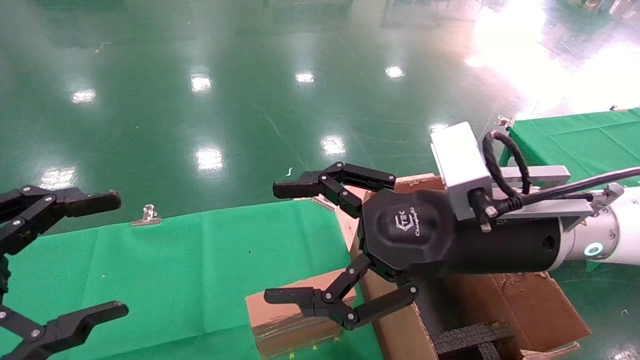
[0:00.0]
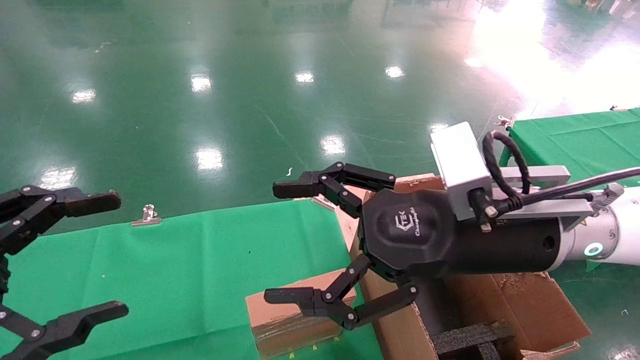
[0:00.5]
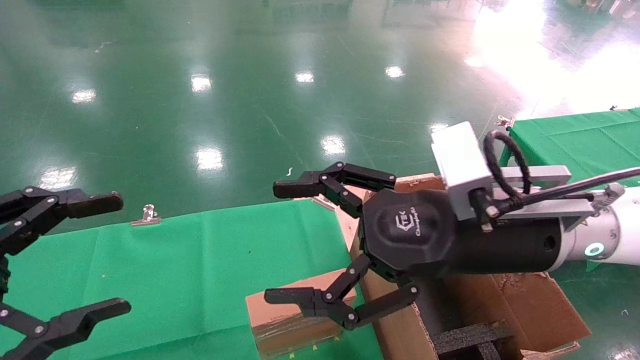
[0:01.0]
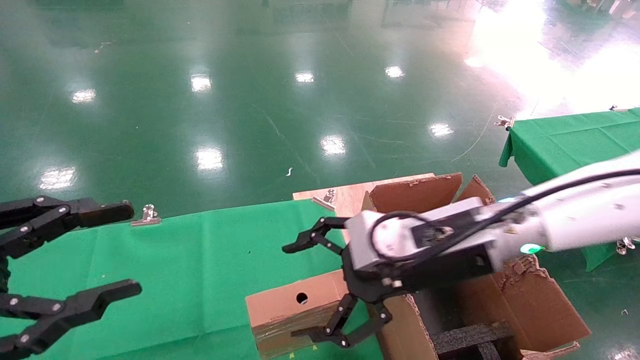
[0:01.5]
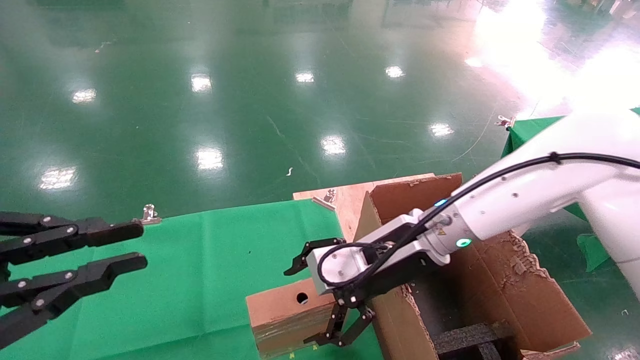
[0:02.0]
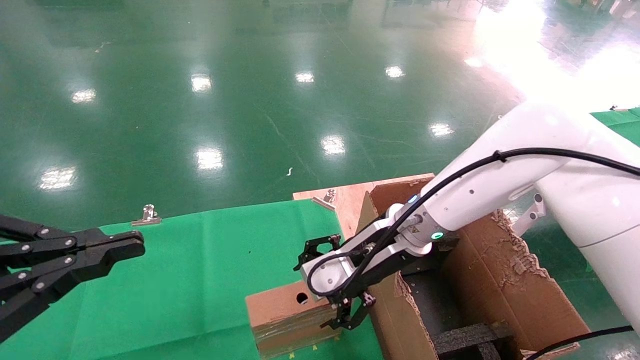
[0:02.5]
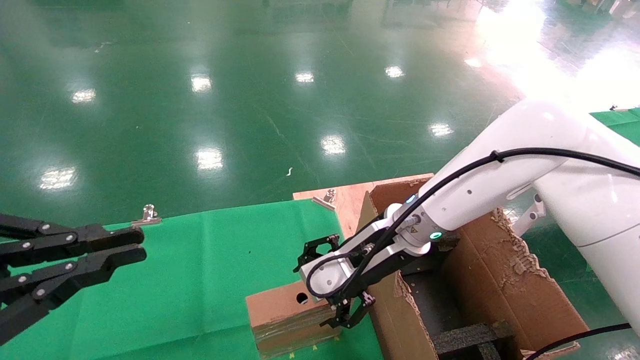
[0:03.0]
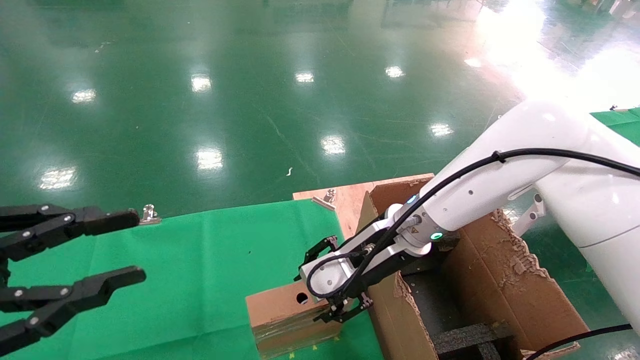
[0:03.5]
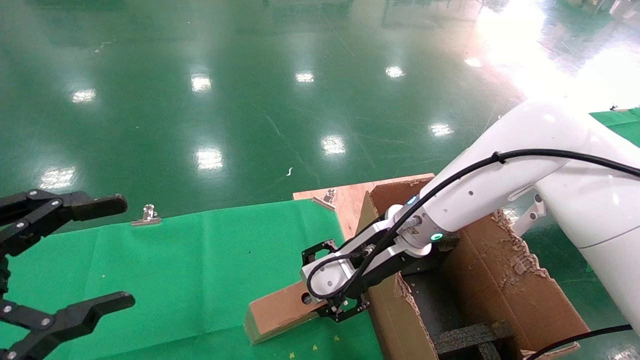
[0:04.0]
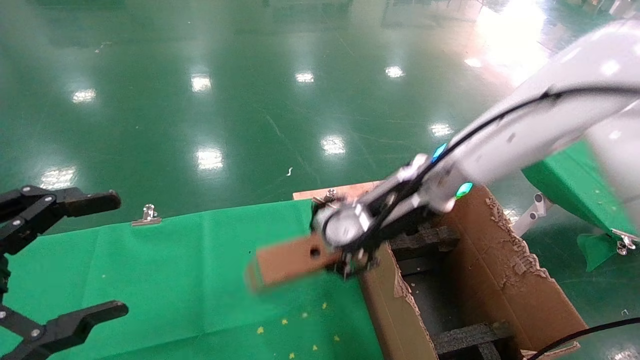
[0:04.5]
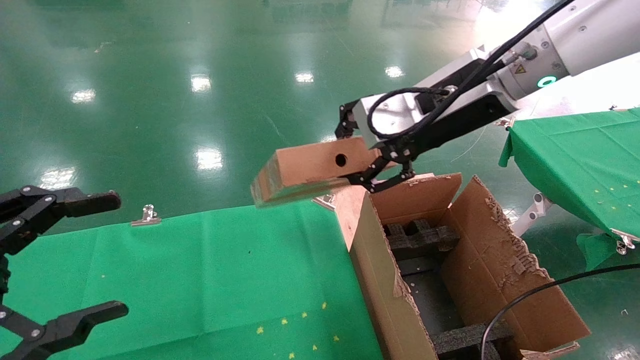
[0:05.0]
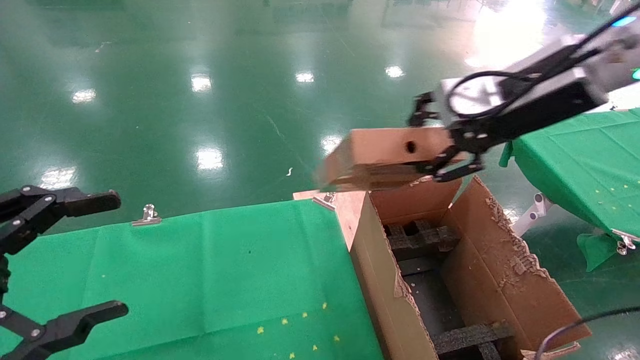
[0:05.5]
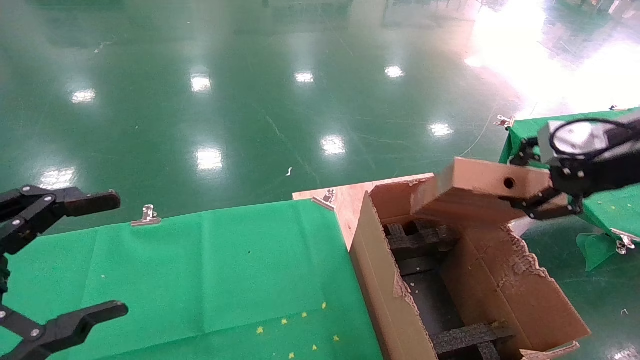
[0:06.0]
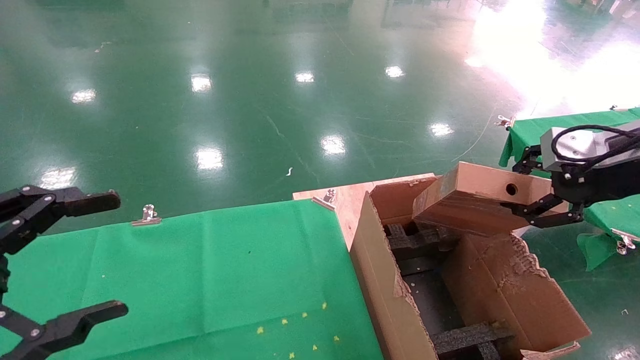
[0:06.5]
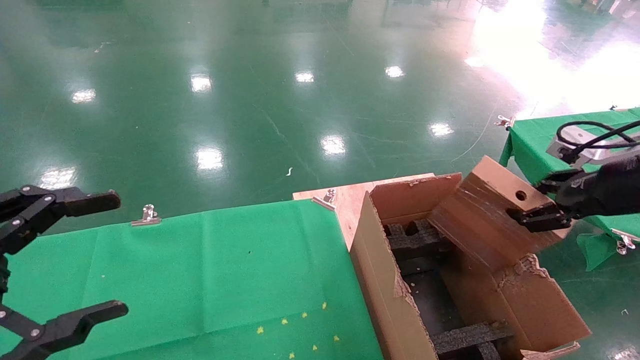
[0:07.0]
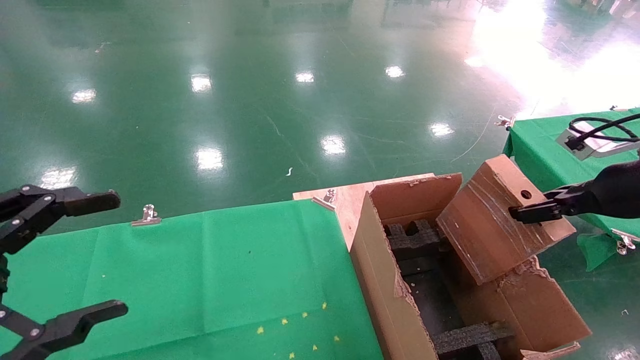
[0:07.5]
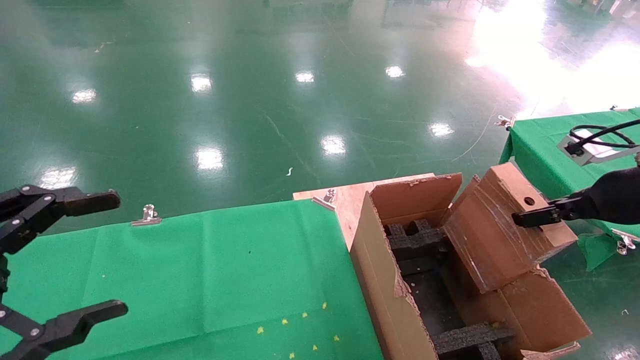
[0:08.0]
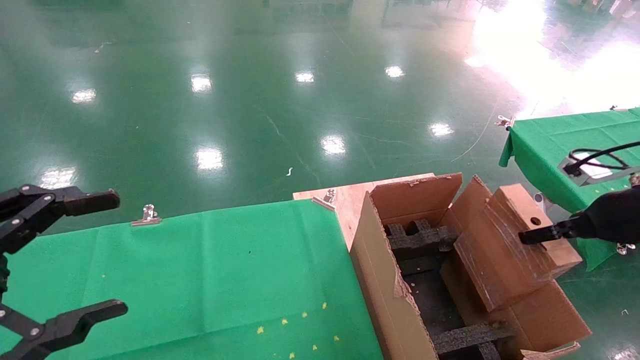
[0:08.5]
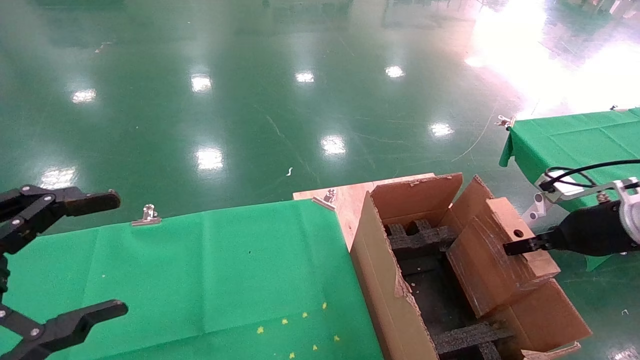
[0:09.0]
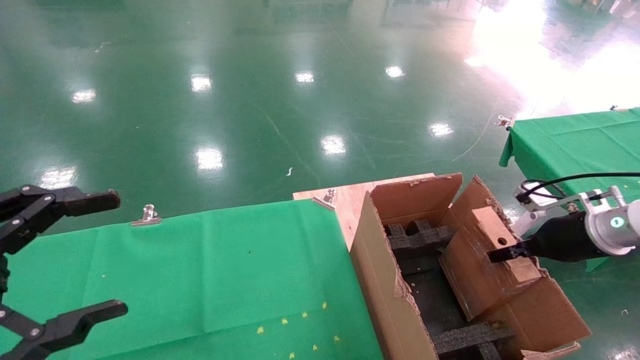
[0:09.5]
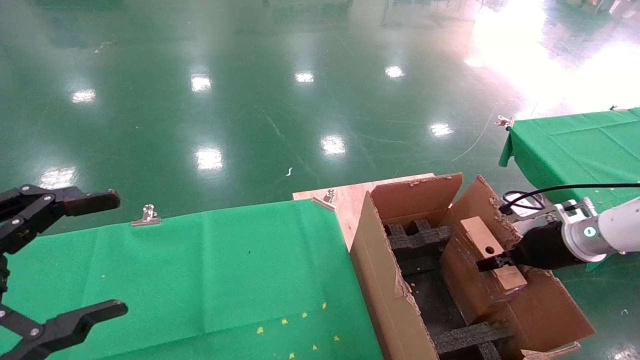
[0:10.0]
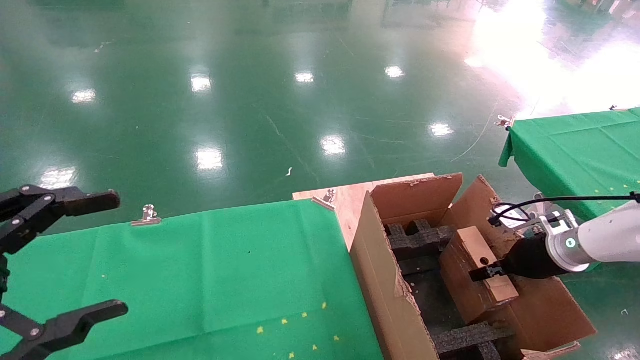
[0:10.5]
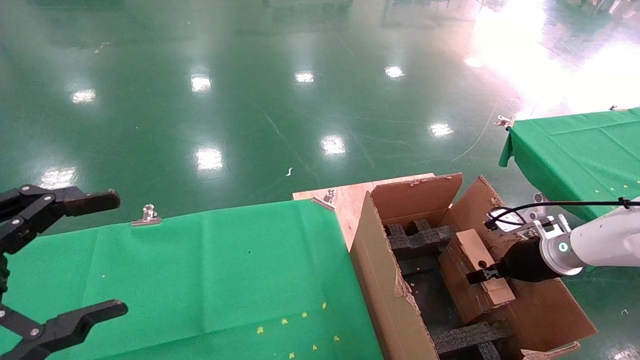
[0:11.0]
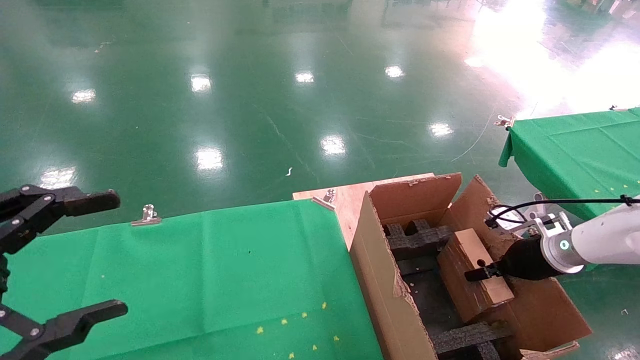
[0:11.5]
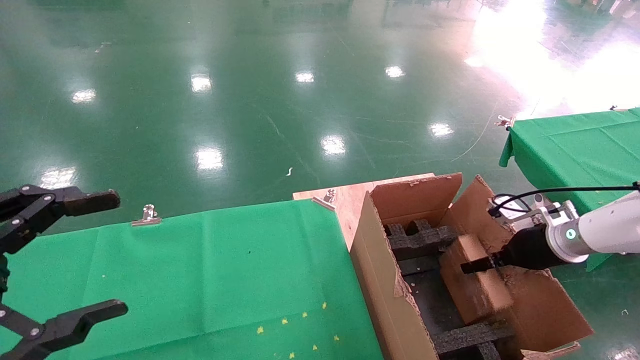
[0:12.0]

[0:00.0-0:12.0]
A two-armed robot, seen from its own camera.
Task of the whole recording: using a robotic arm to pick up a cardboard box and palace it the carton.
Step, 0:01.5 to 0:03.5: Pick up the mouse and the power cord paper box.
0:00.0 to 0:02.0: The left gripper closes its fingers. The right gripper moves forward and downward, about 10 cm.
0:02.0 to 0:04.0: The left gripper opens, while the right gripper closes up.
0:04.0 to 0:06.0: The right gripper is displaced to the right and upward by some 30 cm.
0:06.0 to 0:08.0: The right gripper shifts some 10 cm downward and to the right.
0:08.0 to 0:10.0: The right gripper goes some 15 cm downward and forward.
0:10.0 to 0:12.0: The right gripper opens.

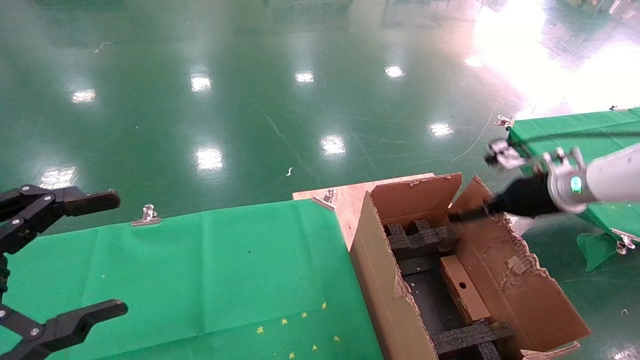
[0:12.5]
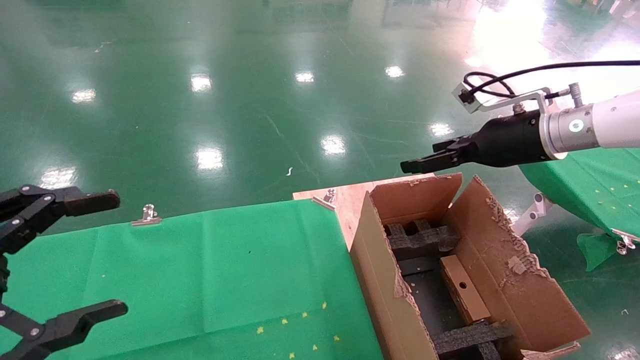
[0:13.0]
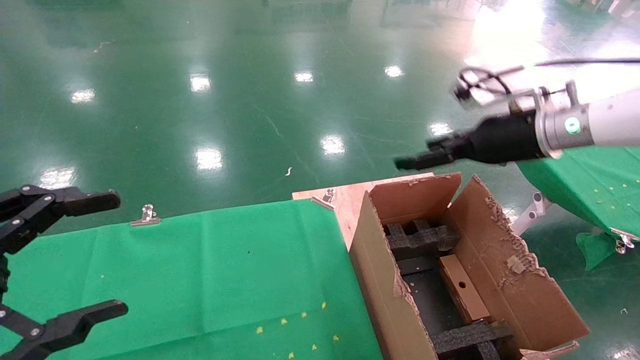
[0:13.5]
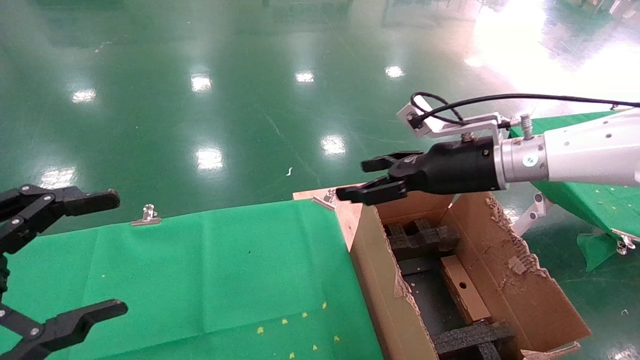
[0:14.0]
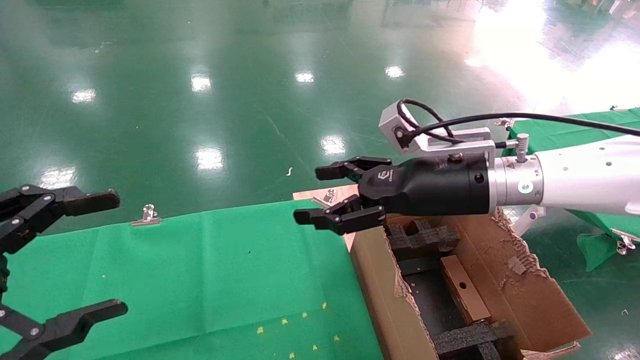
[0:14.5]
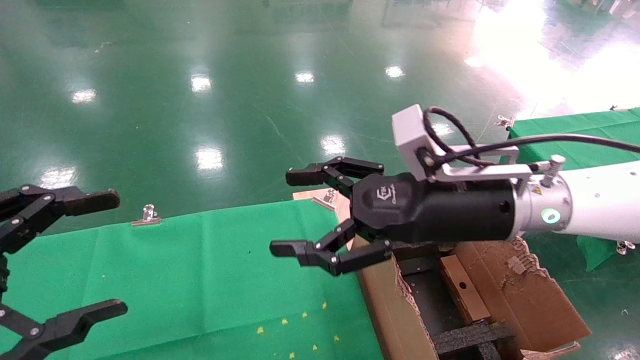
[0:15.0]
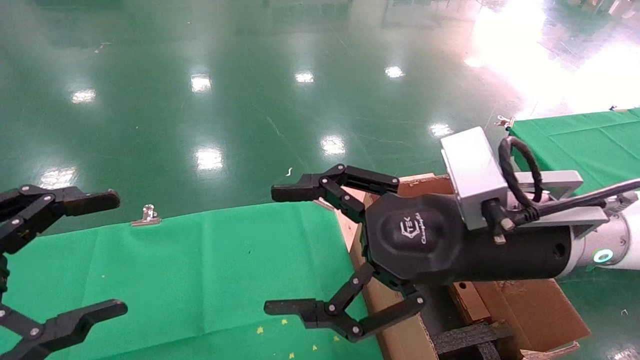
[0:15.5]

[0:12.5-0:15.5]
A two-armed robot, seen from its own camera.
Task of the whole recording: using a robotic arm to pick up a cardboard box and palace it the carton.
0:12.5 to 0:14.0: The right gripper heads to the left, covering about 15 cm.
0:14.0 to 0:15.5: The right gripper goes approximately 15 cm backward and to the left.
